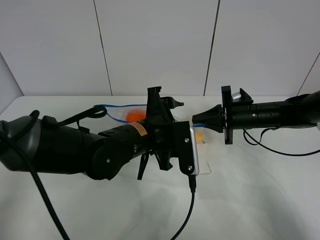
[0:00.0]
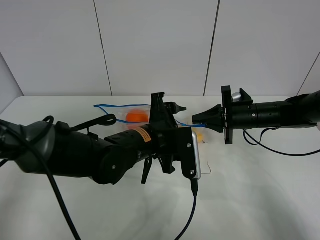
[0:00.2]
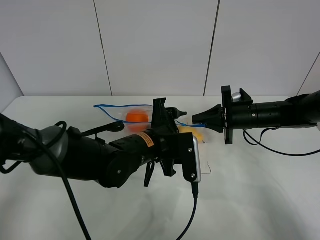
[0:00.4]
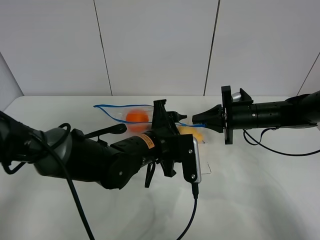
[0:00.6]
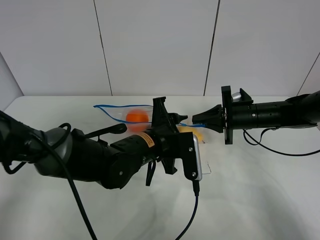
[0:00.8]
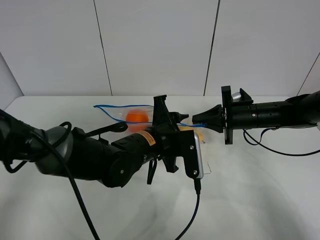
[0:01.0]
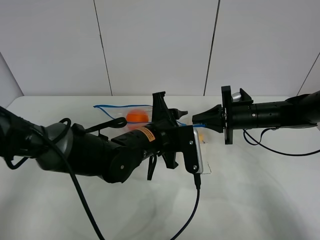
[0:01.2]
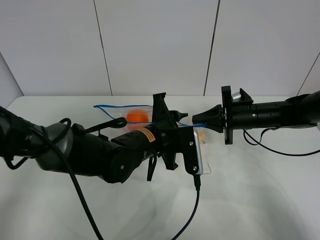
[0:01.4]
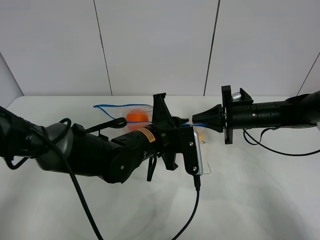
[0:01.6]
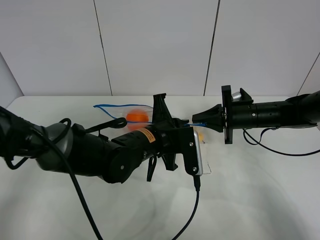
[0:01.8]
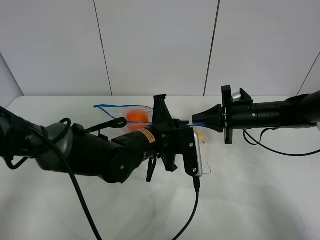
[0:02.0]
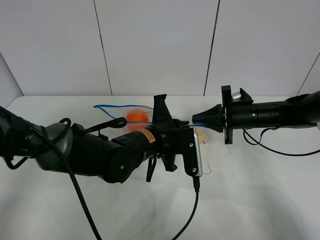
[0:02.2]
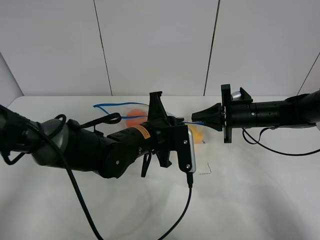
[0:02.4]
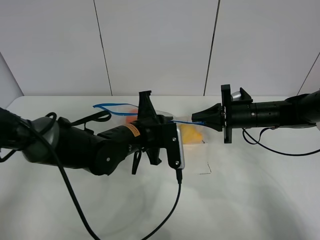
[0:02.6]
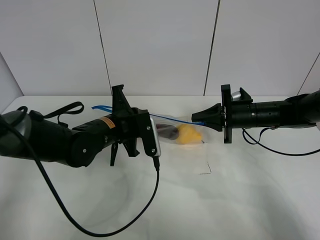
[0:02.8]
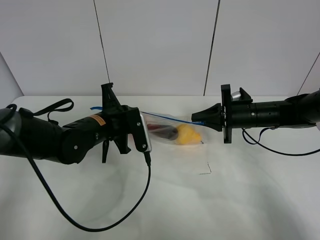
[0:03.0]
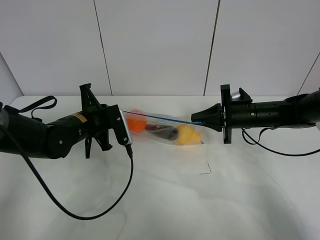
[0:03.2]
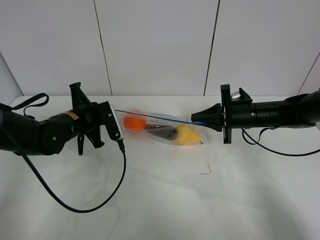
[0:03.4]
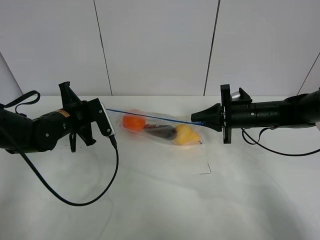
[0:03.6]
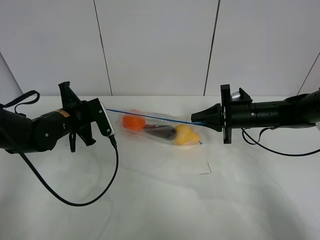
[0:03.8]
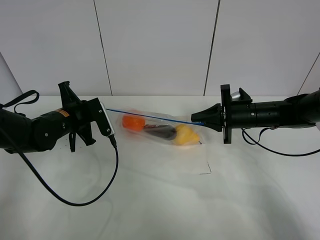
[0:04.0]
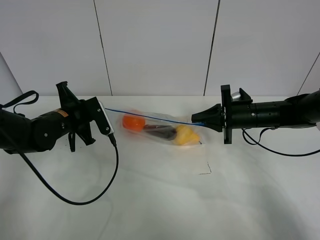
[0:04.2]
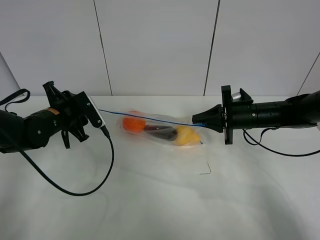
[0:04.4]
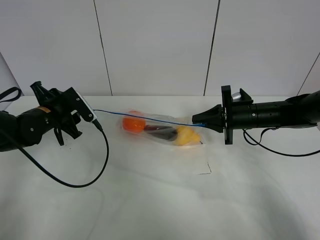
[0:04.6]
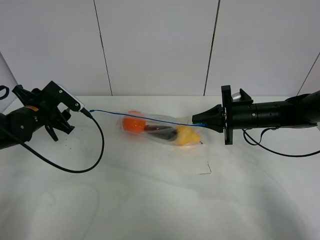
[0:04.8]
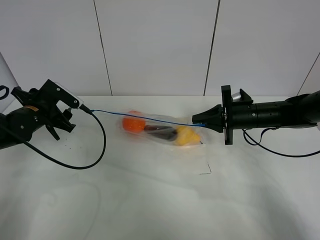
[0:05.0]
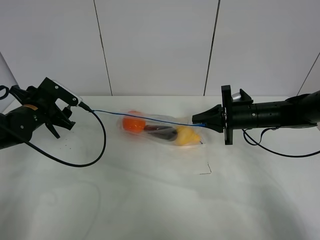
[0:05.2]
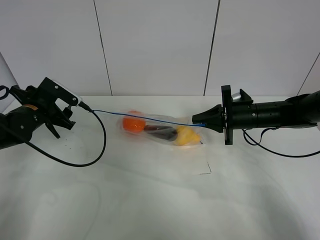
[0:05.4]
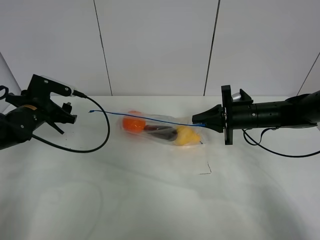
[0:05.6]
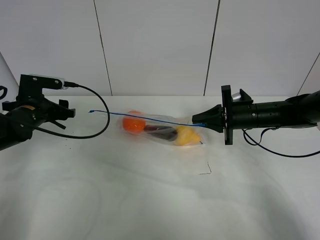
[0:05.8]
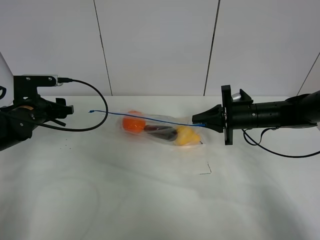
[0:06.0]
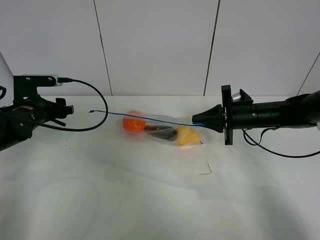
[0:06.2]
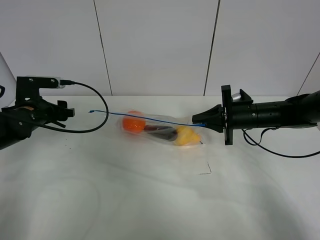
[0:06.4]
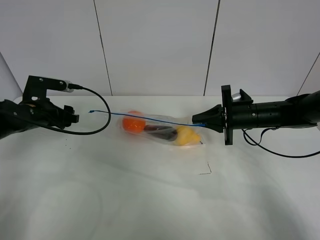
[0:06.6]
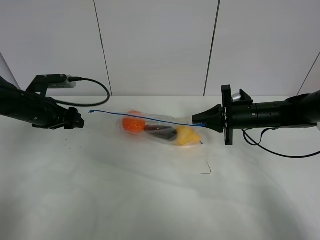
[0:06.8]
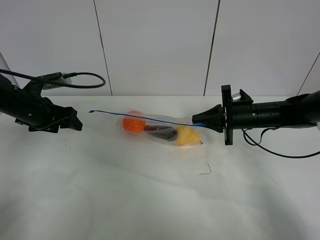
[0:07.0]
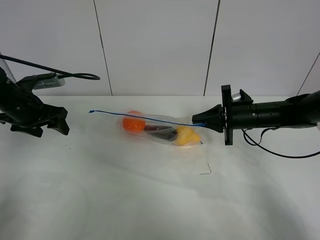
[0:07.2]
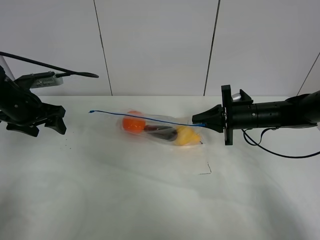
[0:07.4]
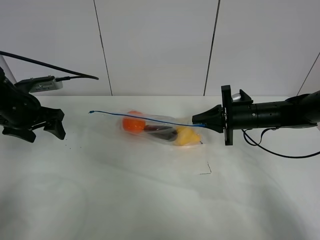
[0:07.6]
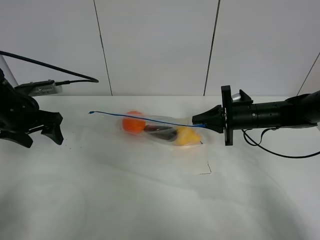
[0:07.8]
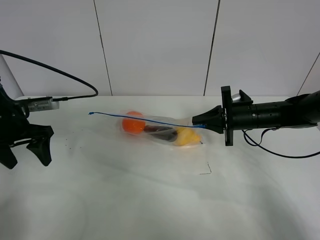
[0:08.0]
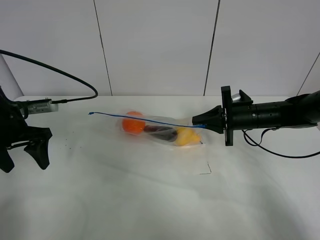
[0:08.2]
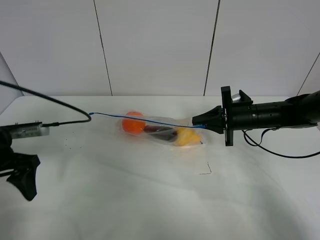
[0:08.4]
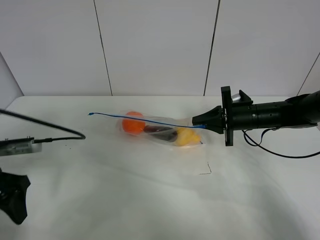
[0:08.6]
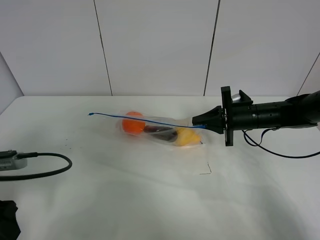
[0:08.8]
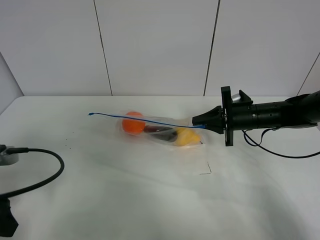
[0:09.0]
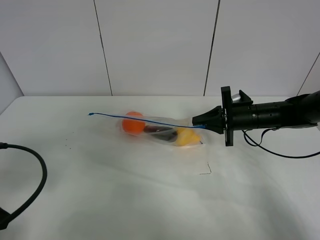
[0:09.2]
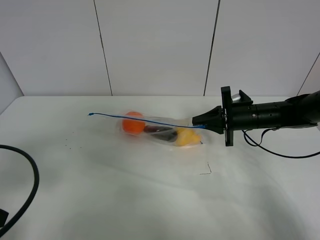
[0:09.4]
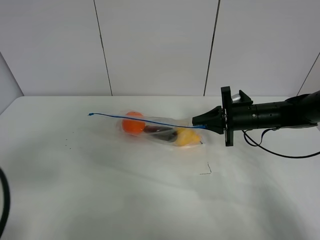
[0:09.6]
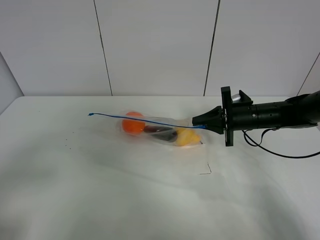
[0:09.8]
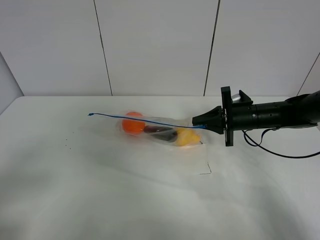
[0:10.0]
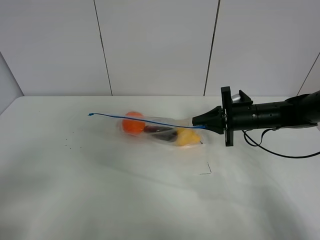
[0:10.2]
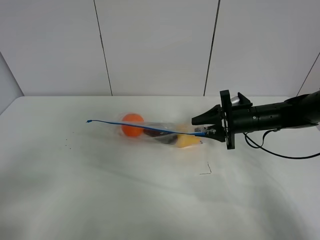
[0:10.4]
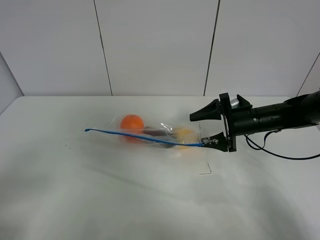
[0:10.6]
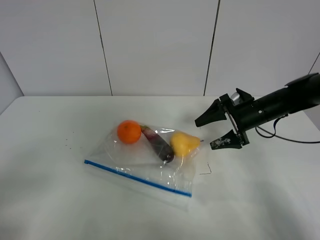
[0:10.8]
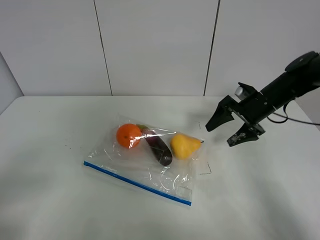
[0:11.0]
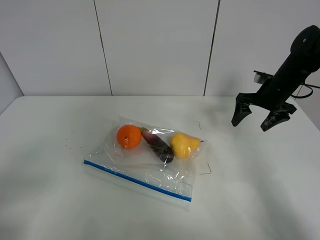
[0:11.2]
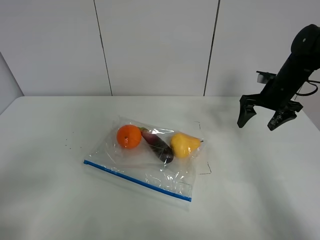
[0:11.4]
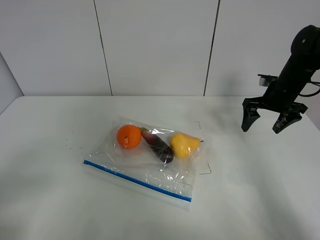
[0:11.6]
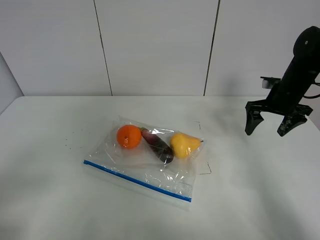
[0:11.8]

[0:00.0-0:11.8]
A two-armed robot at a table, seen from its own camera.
Step, 0:00.0 to 0:04.4: Pull the fruit bag with left gripper.
0:00.0 to 0:01.4: The left gripper closes up.
0:01.4 to 0:03.0: The left gripper goes some 10 cm to the left, and closes its fingers.
0:03.0 to 0:04.4: The left gripper heads to the left, covering roughly 10 cm, and opens.
0:04.4 to 0:06.0: The left gripper goes some 5 cm to the left.
0:06.0 to 0:07.4: The left gripper moves about 5 cm.
0:07.4 to 0:08.8: The left gripper is displaced backward by some 20 cm.
0:08.8 to 0:10.4: The right gripper opens its fingers; the left gripper is displaced backward and upward by approximately 15 cm.
0:10.4 to 0:11.8: The right gripper heads to the right and upward, covering roughly 10 cm, and opens up.

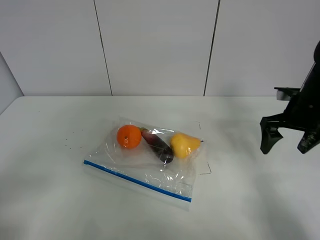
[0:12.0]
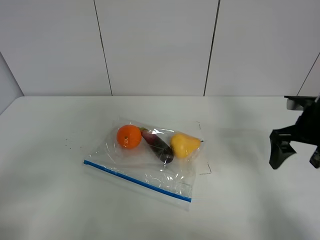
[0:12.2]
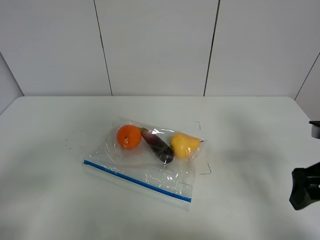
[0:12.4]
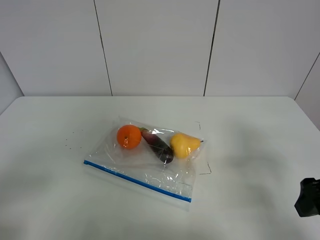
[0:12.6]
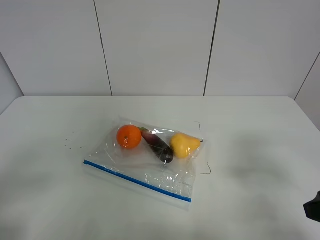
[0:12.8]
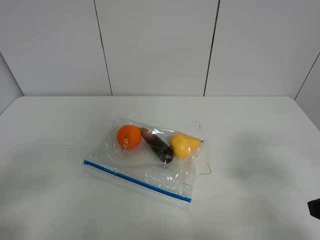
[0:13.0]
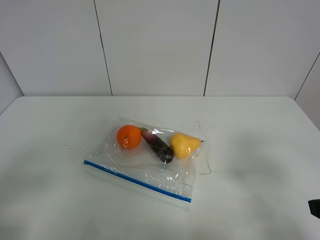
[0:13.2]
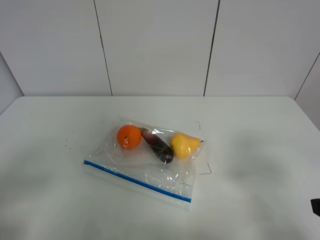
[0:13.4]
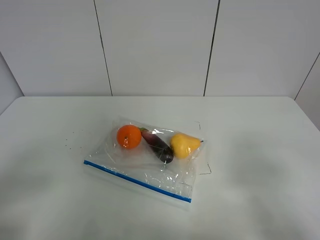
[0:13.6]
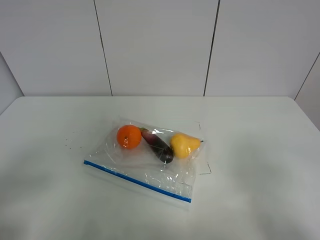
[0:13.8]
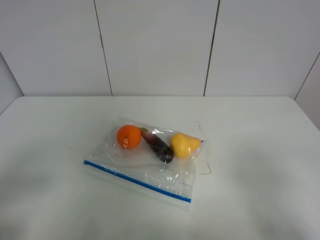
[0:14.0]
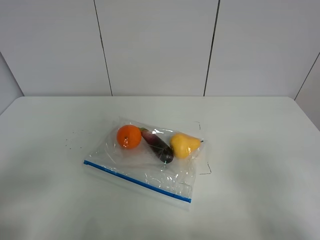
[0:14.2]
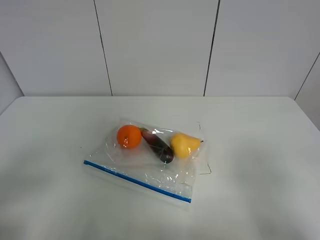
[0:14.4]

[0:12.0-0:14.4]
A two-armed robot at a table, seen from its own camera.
0:12.0 to 0:13.2: The right gripper shifts roughly 25 cm backward.
